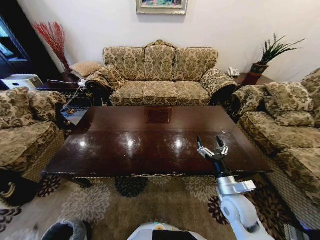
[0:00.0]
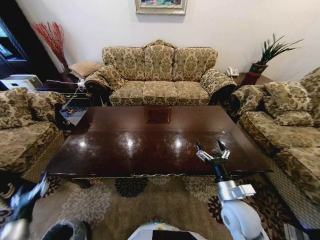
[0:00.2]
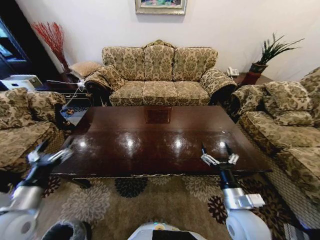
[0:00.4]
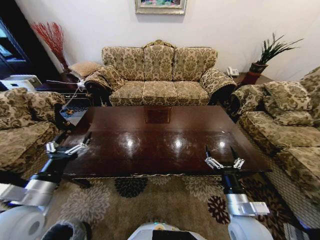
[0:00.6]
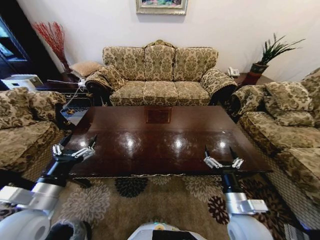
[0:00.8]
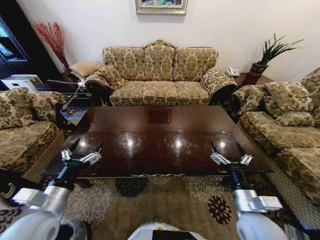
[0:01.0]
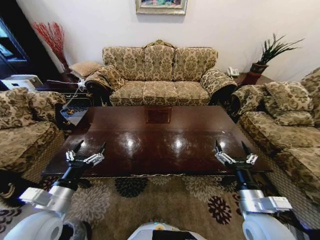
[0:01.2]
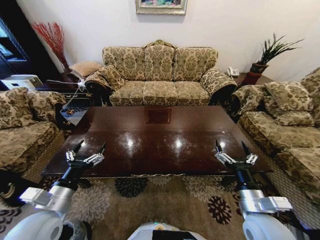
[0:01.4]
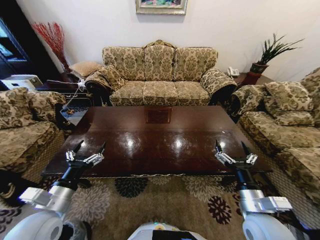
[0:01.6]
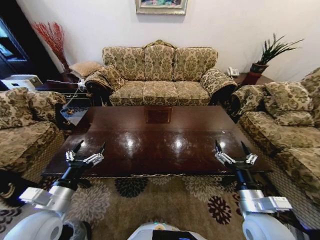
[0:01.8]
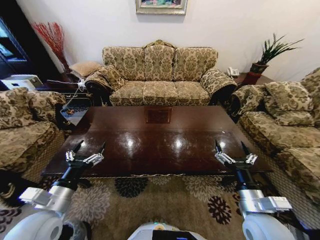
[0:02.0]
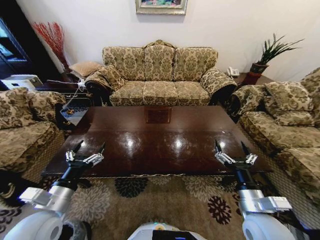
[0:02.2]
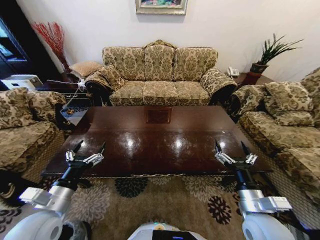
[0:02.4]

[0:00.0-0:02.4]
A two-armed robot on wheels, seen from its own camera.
Task of the whole recording: Move to the front of the table and place the trash on the table into the trash bin.
0:00.0 to 0:01.2: The right gripper goes approximately 10 cm backward and upward, while the left gripper heads upward, to the right and forward, covering about 40 cm.
0:01.2 to 0:02.4: Both grippers stay put.
